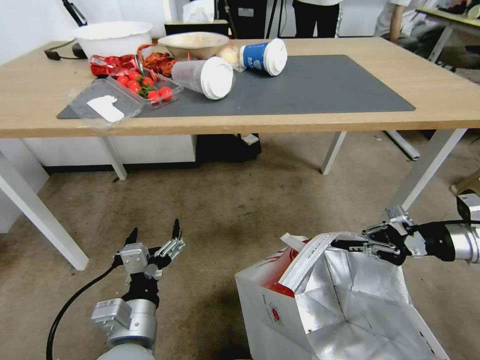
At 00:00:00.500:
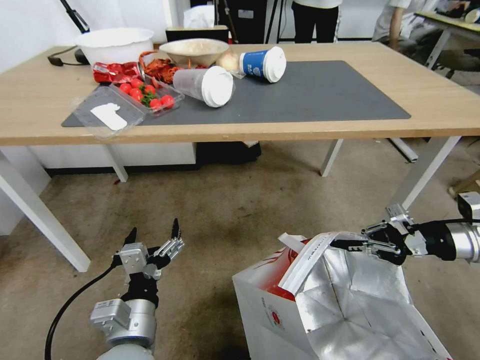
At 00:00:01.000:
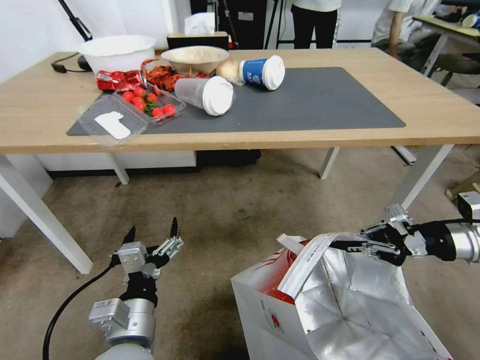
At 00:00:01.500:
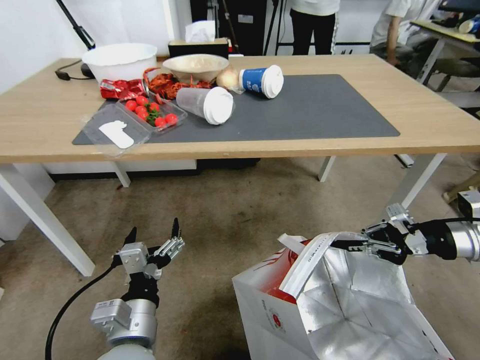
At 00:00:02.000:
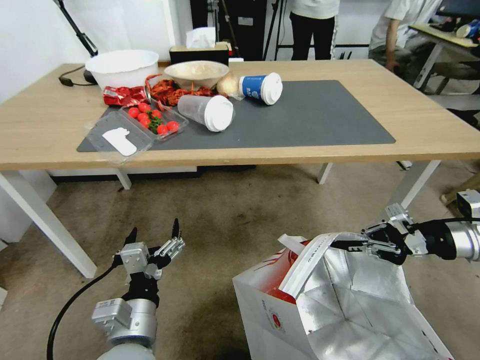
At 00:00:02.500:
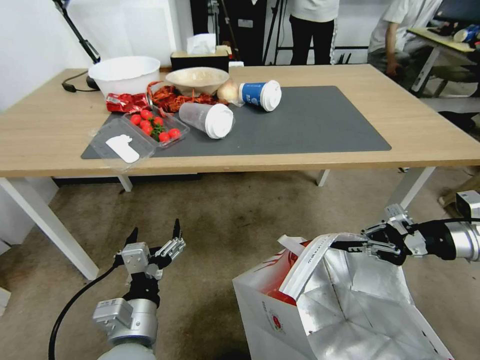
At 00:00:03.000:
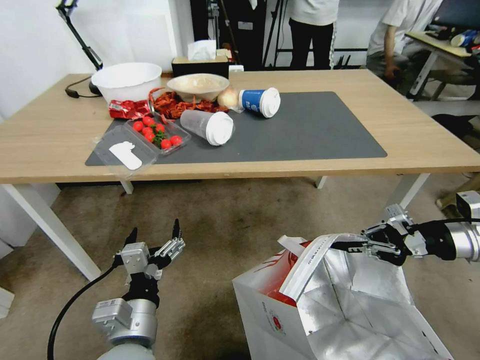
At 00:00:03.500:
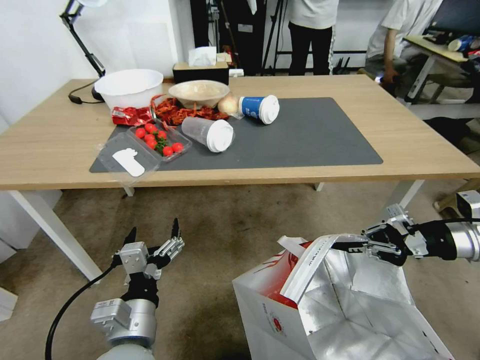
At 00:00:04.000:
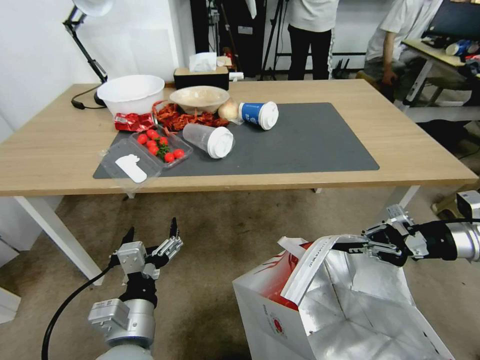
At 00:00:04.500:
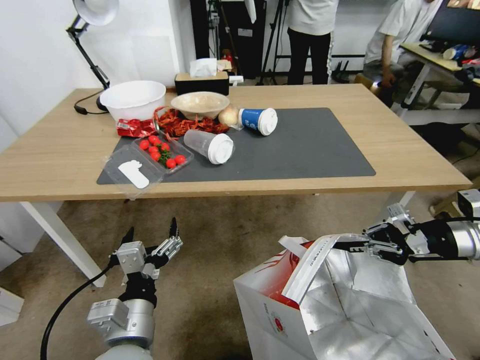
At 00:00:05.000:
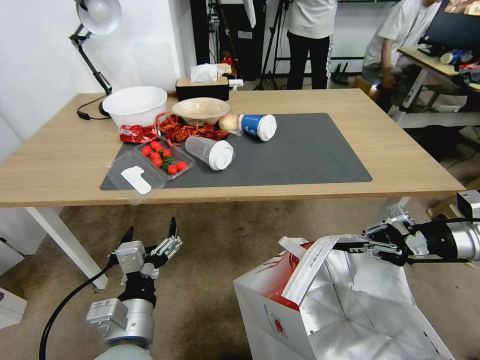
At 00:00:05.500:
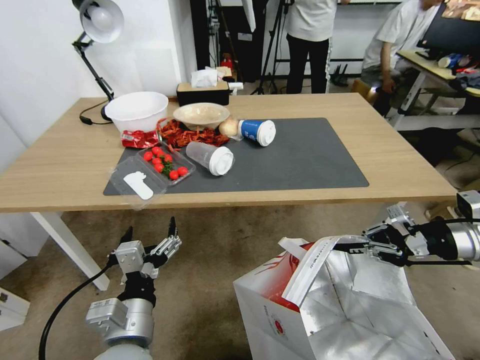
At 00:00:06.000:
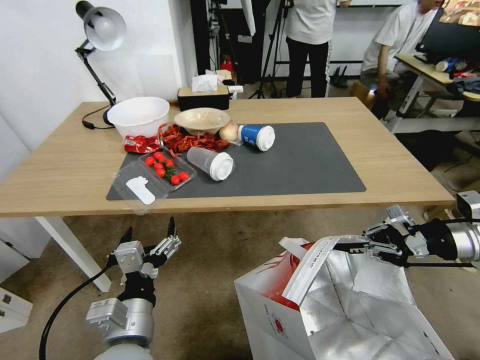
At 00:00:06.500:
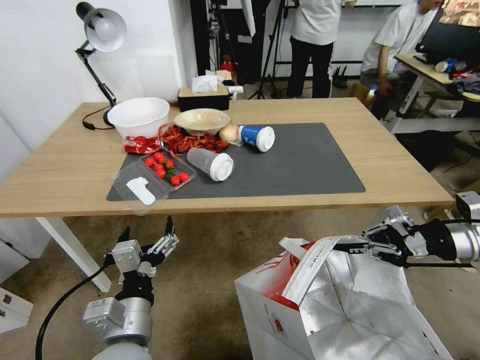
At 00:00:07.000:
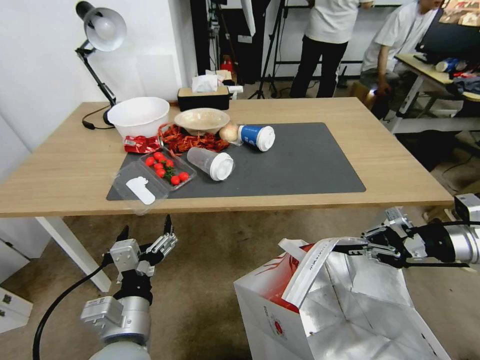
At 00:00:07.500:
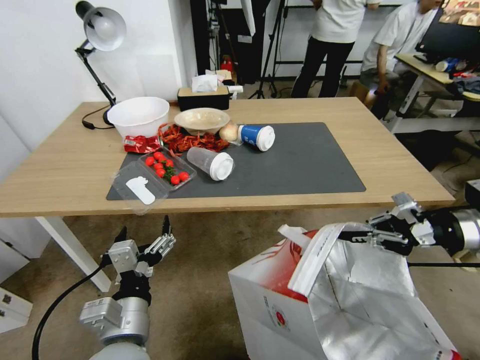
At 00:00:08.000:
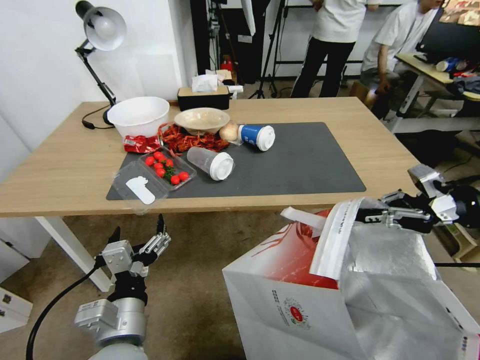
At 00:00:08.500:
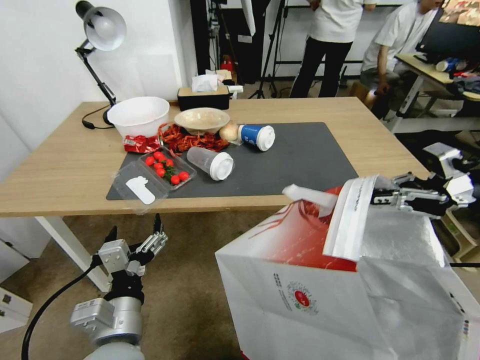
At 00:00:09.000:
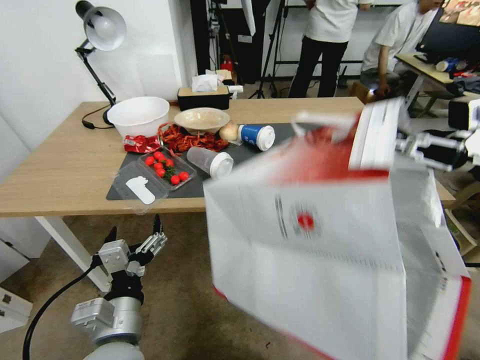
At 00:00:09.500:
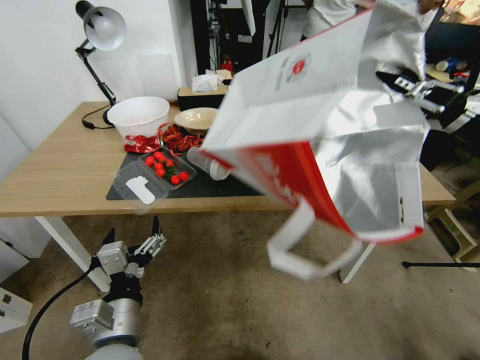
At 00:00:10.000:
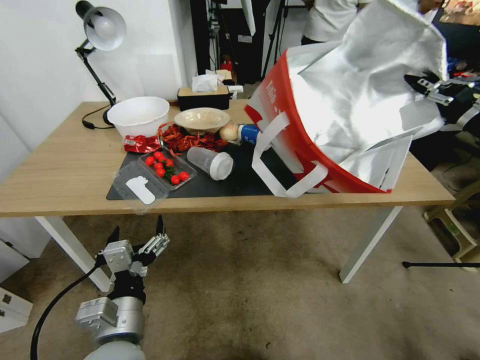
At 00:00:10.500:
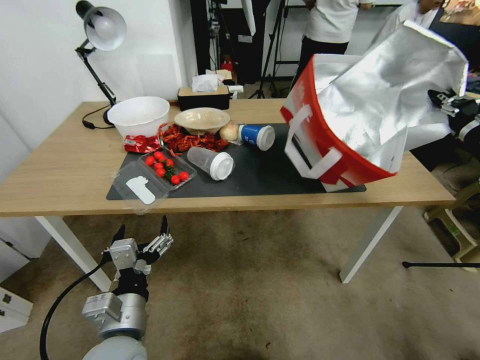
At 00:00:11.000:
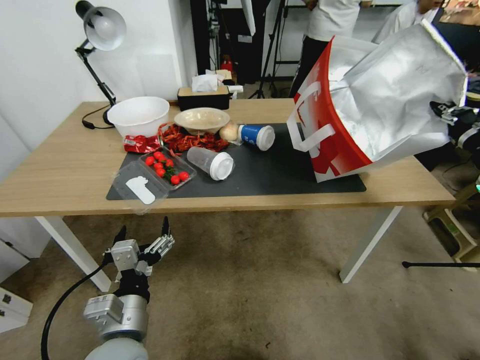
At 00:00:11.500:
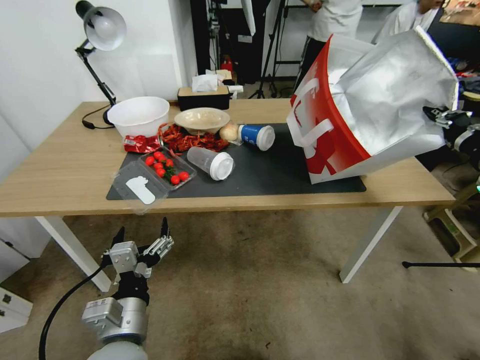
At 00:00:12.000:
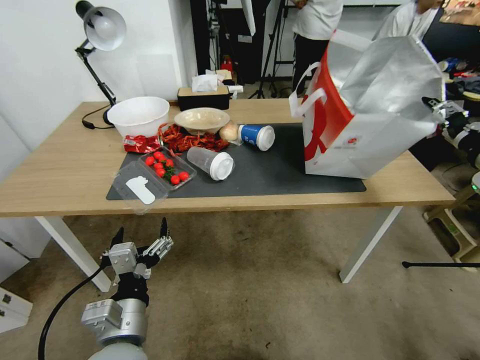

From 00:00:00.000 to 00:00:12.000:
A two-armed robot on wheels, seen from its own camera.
Task of the whole recording: Pick up the food delivery bag from the floor and place it on the table.
From 00:00:06.000 to 00:00:08.000: The right gripper heads upward, covering approximately 5 cm.
From 00:00:08.000 to 00:00:10.000: The right gripper moves upward, about 5 cm.
From 00:00:10.000 to 00:00:12.000: The right gripper heads downward, covering about 5 cm, and opens up.

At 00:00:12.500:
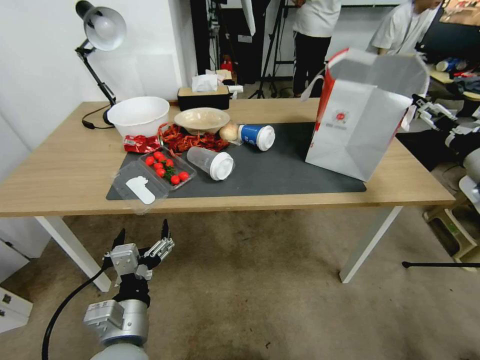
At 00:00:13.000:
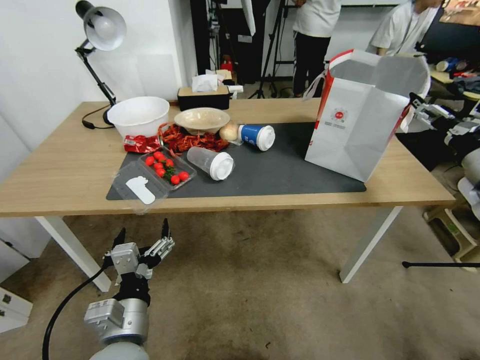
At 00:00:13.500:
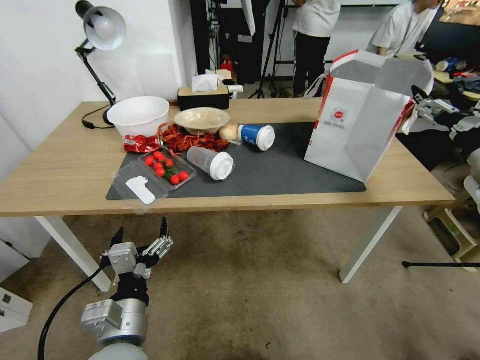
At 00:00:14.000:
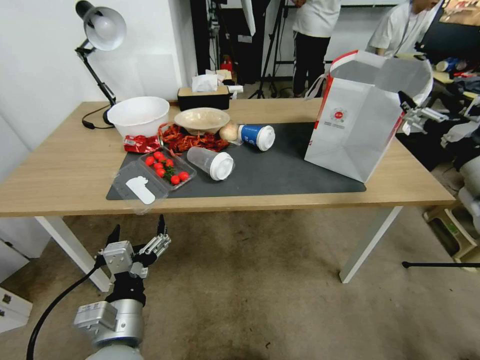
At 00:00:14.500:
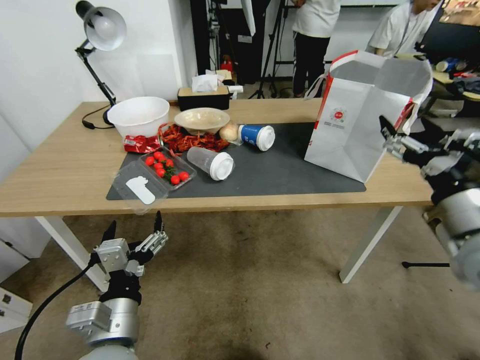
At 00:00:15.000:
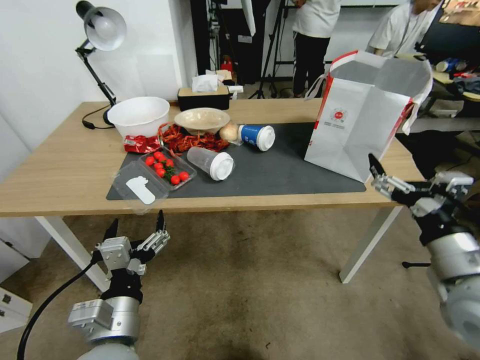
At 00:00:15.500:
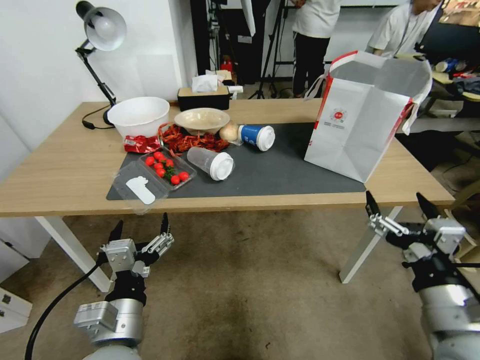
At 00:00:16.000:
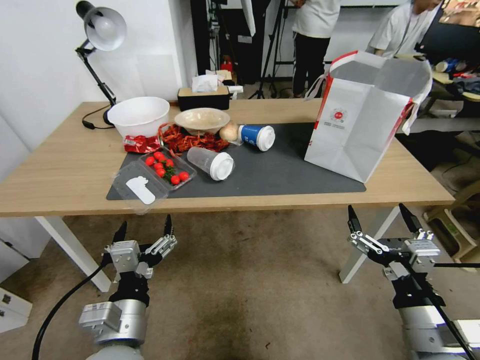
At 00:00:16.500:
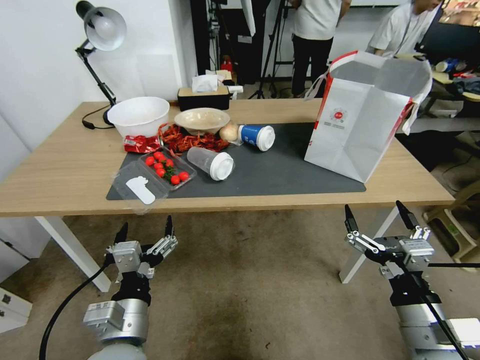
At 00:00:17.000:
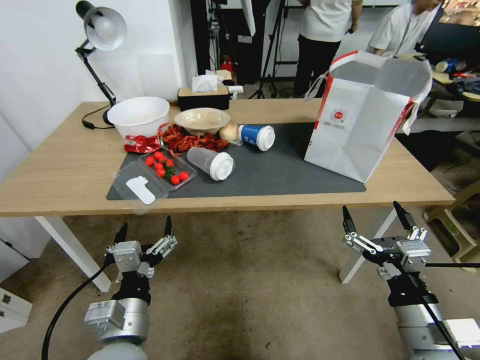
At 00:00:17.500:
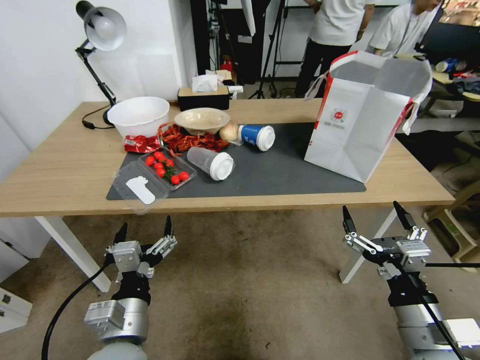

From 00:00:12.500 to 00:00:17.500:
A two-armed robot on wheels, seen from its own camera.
Task of the whole recording: Pick up the food delivery bag from the floor and place it on the table.
From 00:00:12.500 to 00:00:15.000: The right gripper goes about 20 cm backward, to the left and downward.
From 00:00:15.000 to 00:00:17.500: The right gripper is displaced downward, backward and to the left by some 10 cm.
